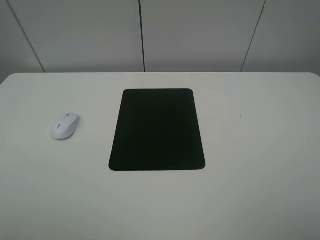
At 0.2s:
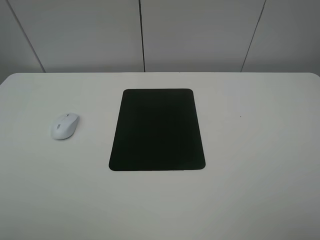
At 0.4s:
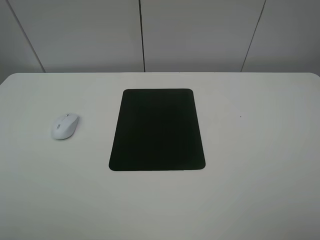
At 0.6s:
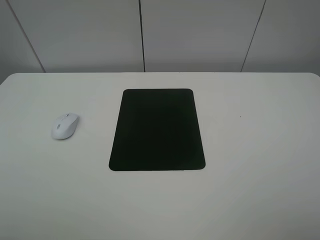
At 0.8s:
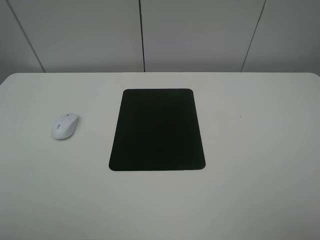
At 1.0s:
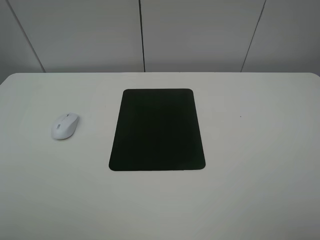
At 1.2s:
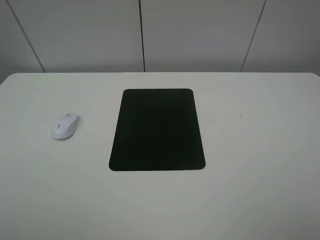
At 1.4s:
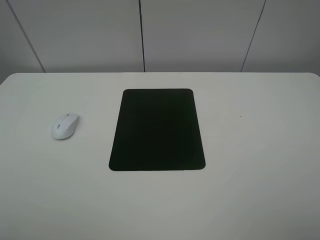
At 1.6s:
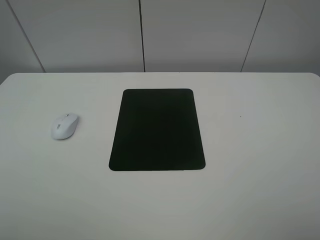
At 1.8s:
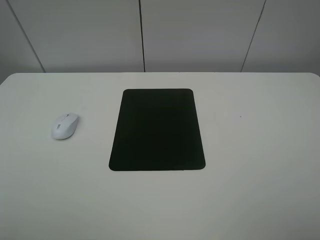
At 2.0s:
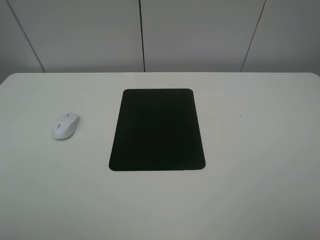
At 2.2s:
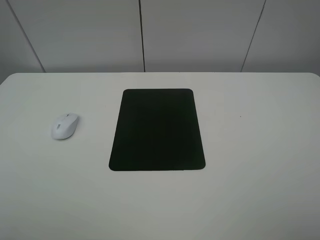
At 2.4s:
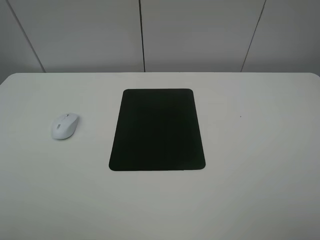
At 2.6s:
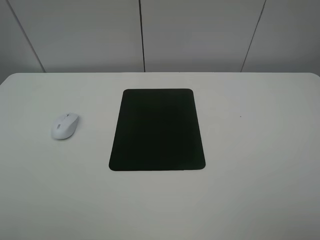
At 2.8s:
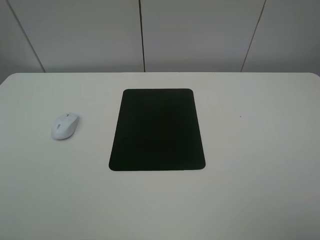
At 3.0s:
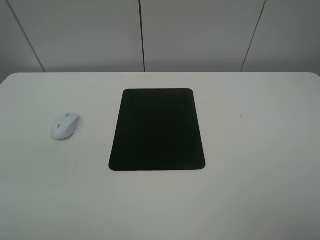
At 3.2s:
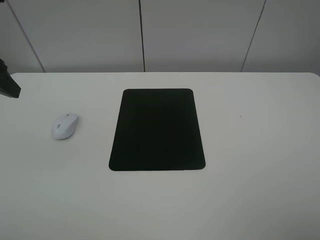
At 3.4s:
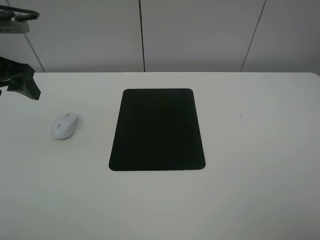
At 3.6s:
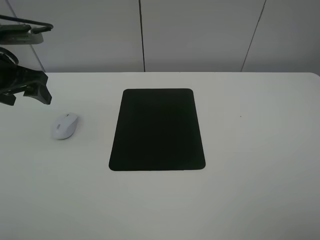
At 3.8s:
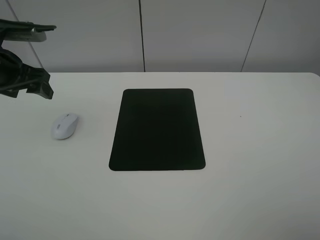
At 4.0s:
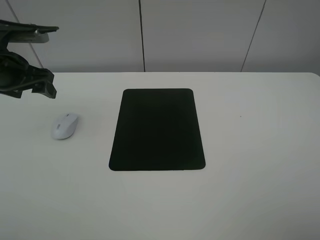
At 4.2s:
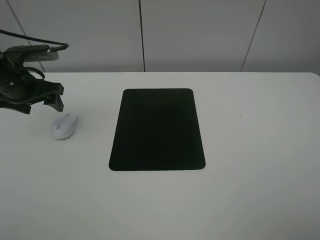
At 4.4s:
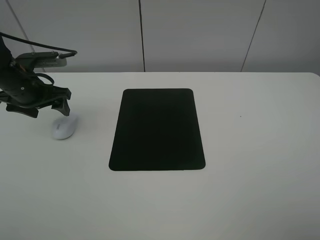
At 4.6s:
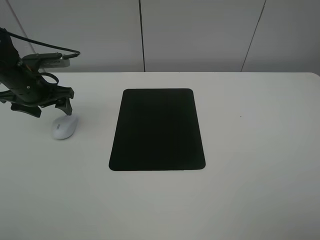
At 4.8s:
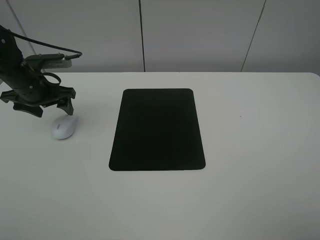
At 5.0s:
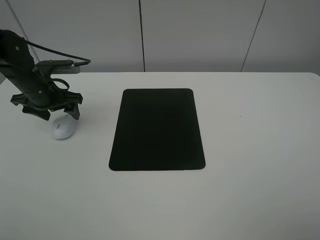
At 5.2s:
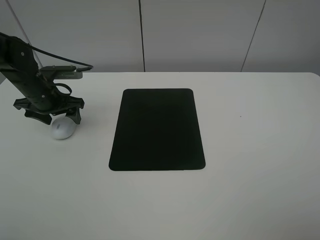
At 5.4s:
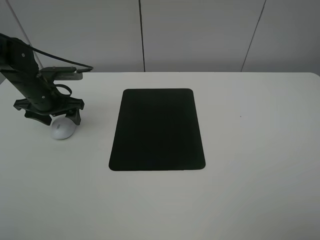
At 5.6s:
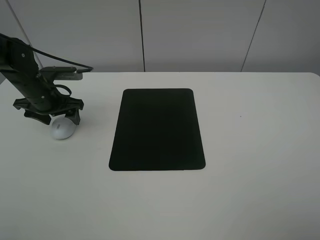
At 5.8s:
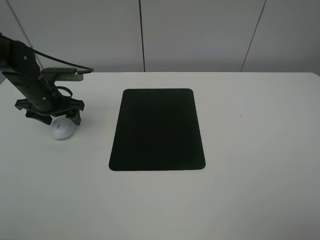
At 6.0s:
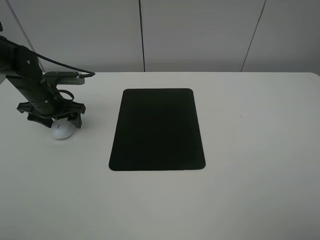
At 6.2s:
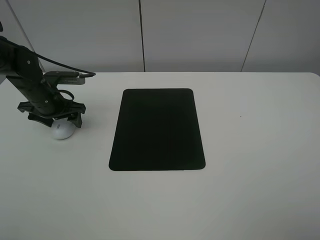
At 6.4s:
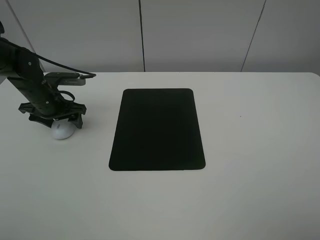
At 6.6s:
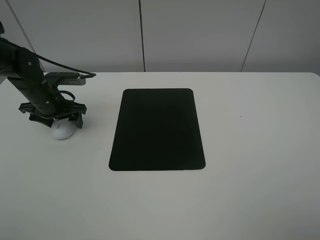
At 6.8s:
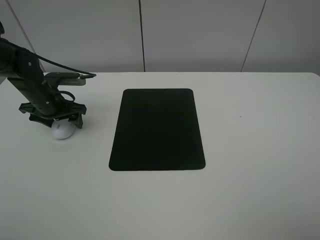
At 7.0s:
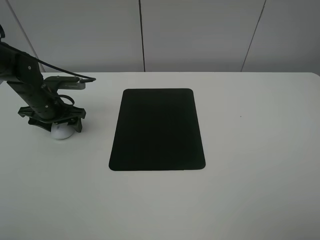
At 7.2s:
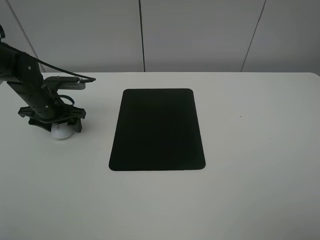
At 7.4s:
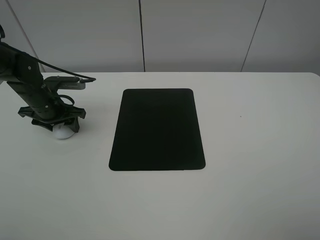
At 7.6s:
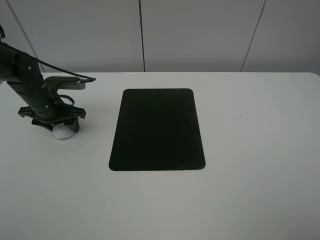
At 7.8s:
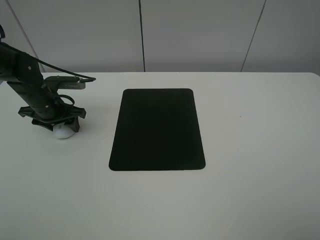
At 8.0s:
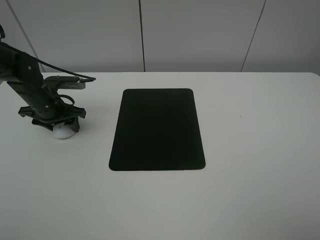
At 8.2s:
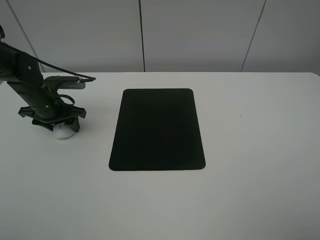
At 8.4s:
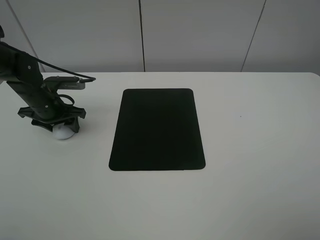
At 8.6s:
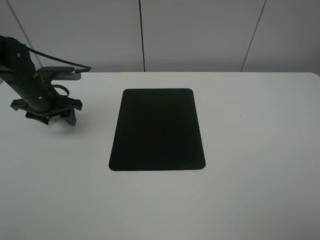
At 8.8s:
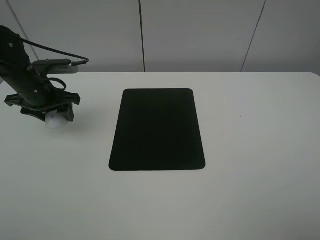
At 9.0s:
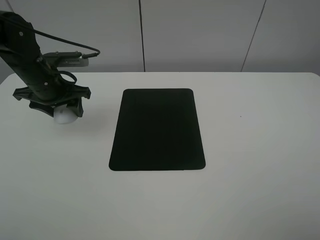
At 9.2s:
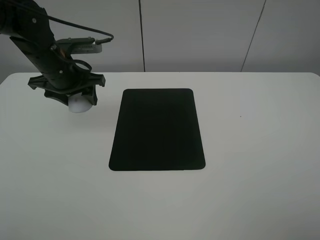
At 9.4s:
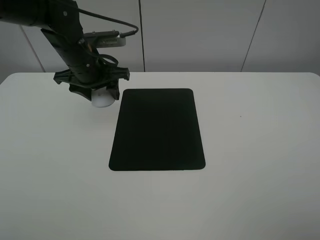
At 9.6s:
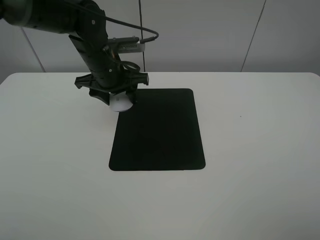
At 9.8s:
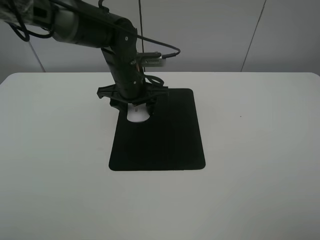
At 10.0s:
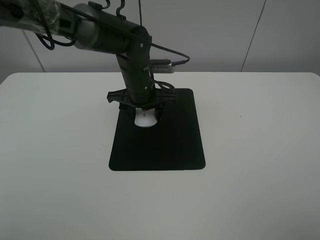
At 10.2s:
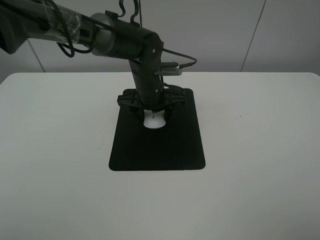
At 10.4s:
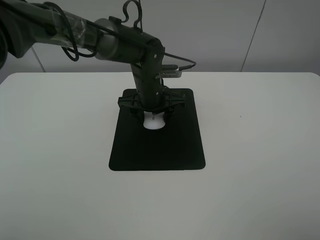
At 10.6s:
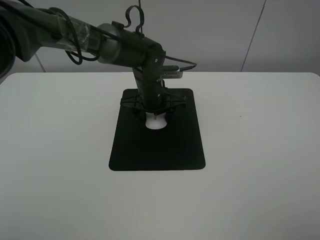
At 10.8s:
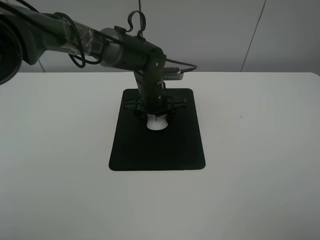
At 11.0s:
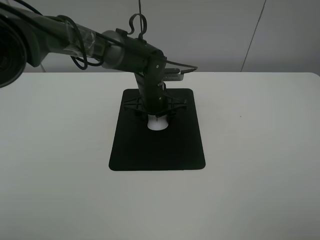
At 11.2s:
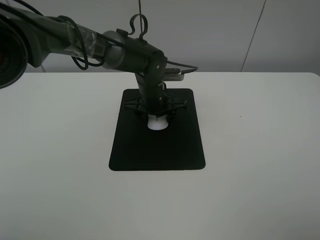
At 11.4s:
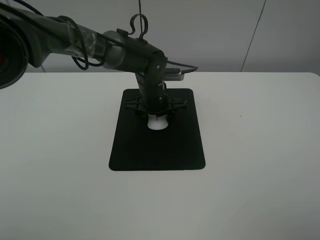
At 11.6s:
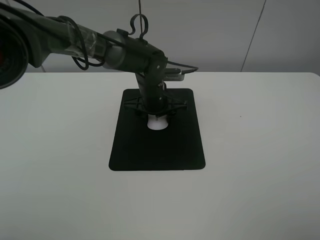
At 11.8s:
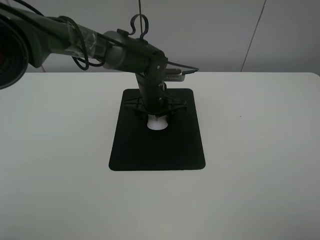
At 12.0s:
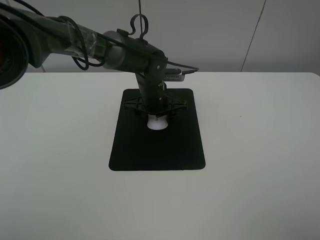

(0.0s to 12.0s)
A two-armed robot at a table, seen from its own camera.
Step, 0.0s - 8.0s: Grasp the mouse with the left gripper.
0.0s - 1.6s: Both grippers stay about where they are.
3.0s - 4.4s: The left gripper travels downward and forward by approximately 20 cm.
4.4s - 6.0s: The left gripper heads downward, covering approximately 5 cm.
6.0s - 7.6s: The left gripper closes up.
7.6s - 9.0s: The left gripper goes about 10 cm upward.
9.0s - 10.4s: The left gripper moves to the right, approximately 20 cm.
10.4s - 12.0s: The grippers make only small movements.

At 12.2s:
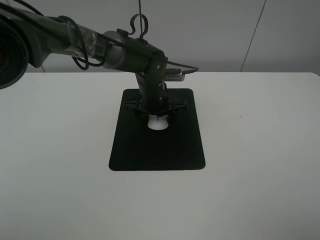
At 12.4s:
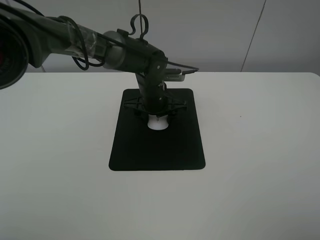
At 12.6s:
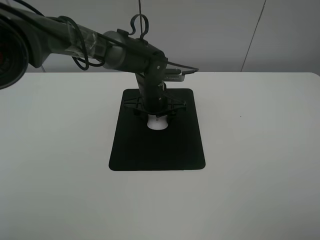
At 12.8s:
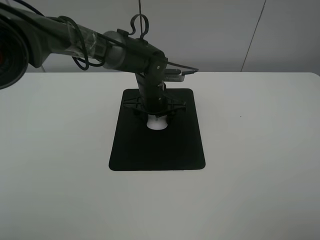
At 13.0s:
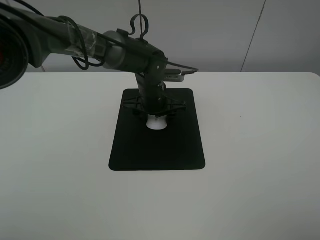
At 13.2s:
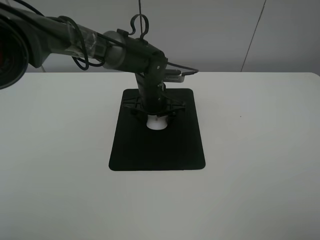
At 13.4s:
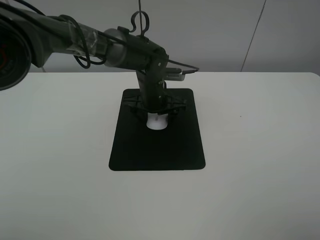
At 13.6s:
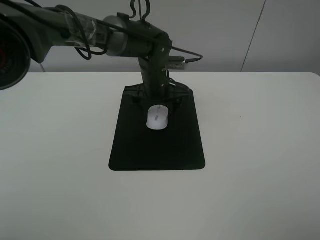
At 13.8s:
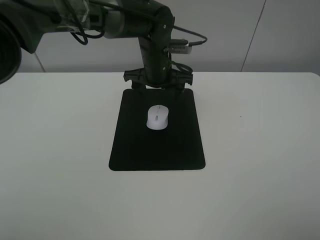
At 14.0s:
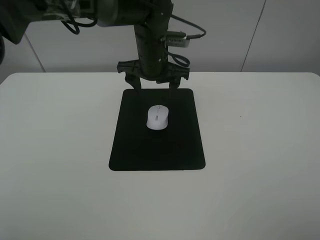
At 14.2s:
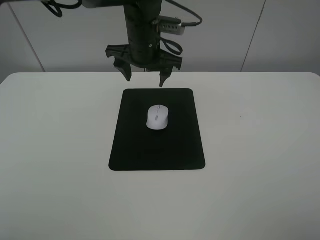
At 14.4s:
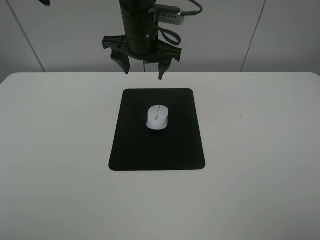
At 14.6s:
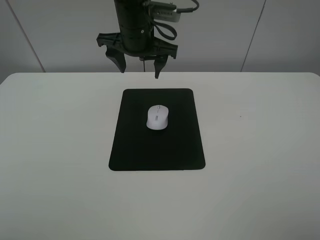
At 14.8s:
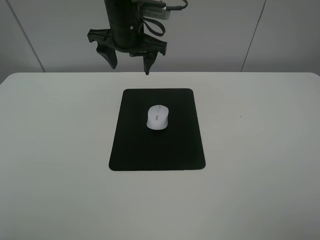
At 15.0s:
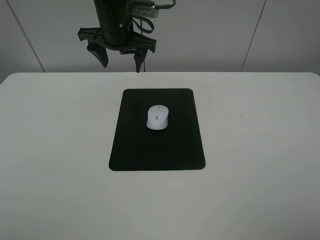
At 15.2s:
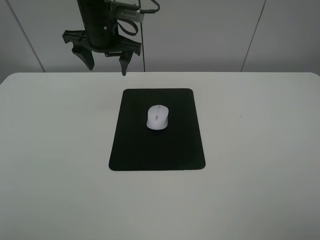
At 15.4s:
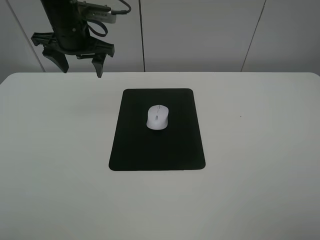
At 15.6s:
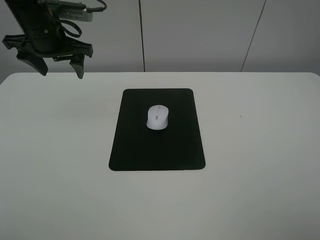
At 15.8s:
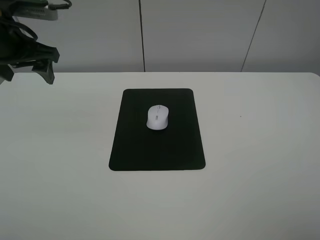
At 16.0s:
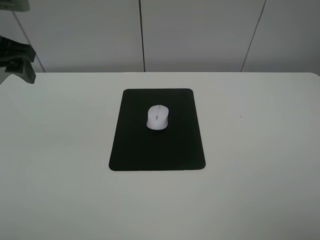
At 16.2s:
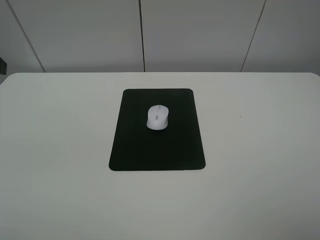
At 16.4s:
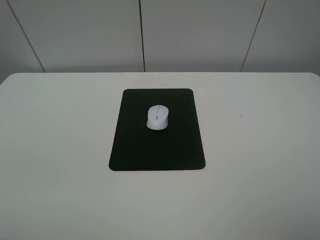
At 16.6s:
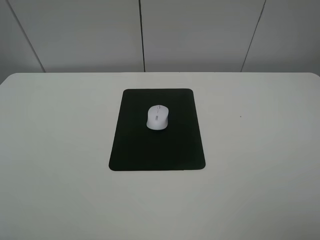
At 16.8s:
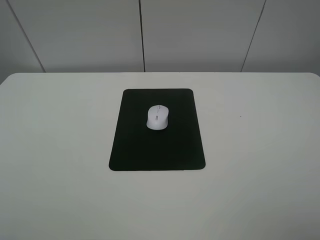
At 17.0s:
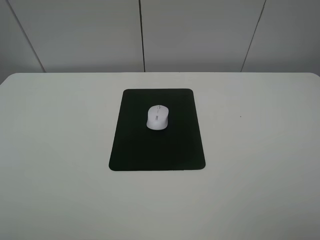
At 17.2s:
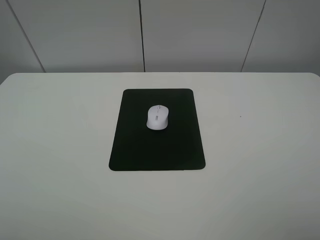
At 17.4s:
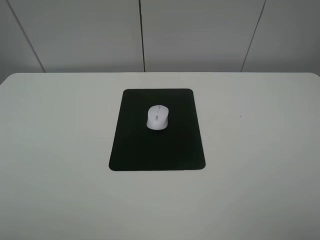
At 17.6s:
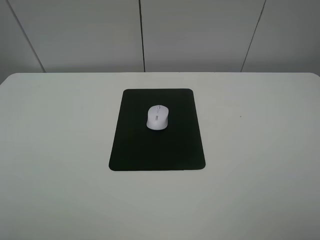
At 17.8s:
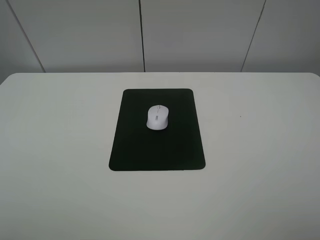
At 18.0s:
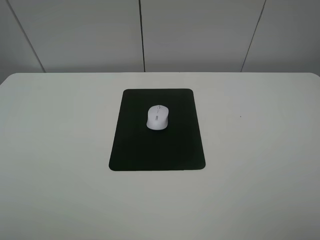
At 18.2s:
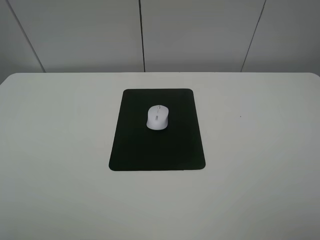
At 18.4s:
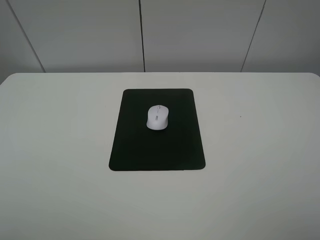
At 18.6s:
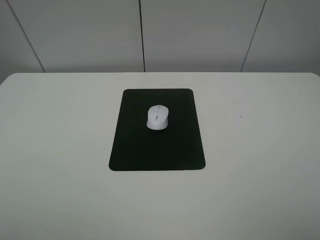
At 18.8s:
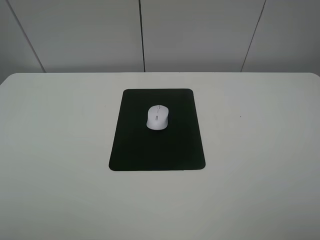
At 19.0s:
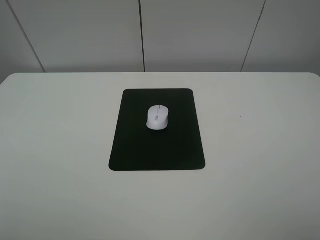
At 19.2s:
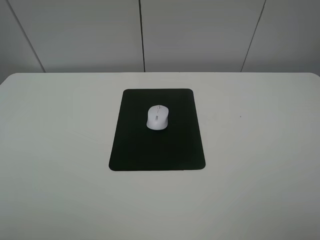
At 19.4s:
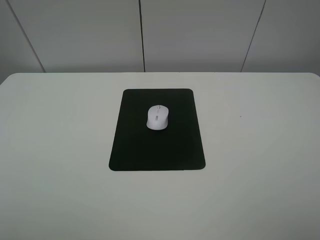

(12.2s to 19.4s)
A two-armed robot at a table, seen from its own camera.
12.2s - 13.6s: The left gripper opens.
13.6s - 15.0s: The left gripper moves upward and to the left, roughly 15 cm.
15.0s - 16.6s: The left gripper heads backward and to the left, covering approximately 35 cm.

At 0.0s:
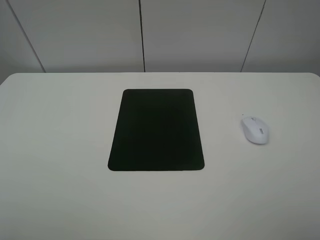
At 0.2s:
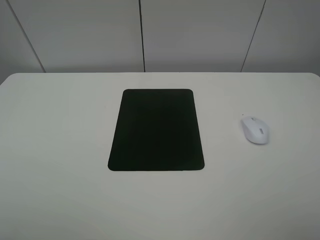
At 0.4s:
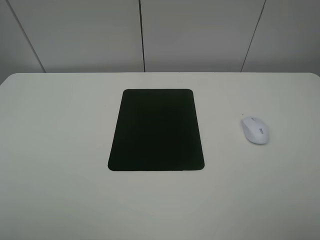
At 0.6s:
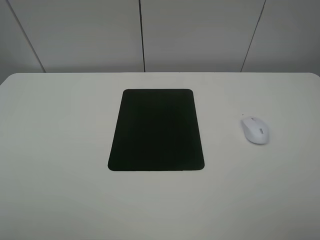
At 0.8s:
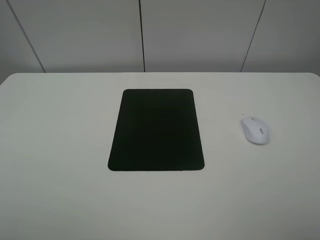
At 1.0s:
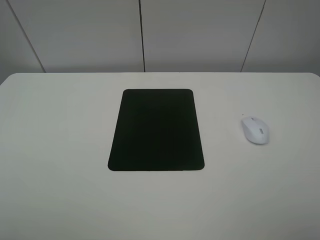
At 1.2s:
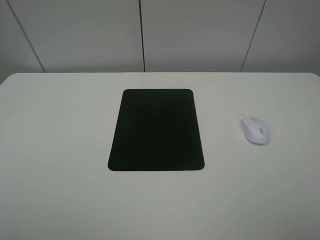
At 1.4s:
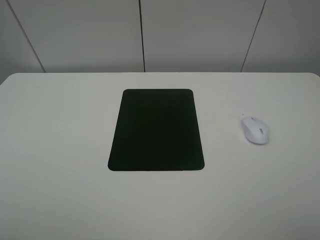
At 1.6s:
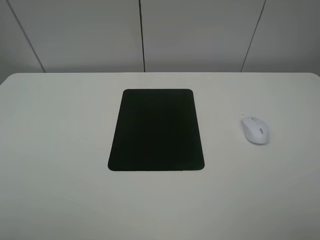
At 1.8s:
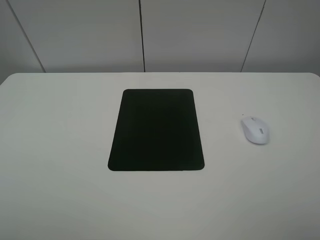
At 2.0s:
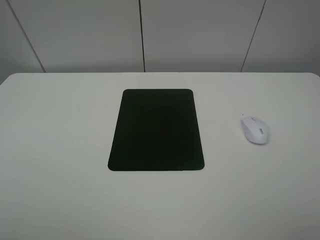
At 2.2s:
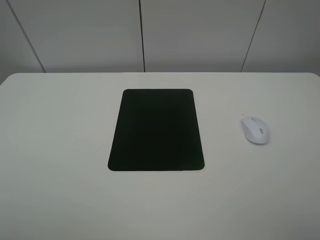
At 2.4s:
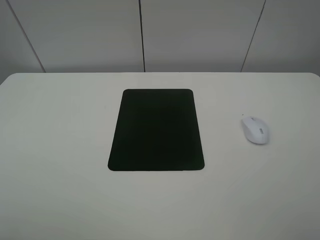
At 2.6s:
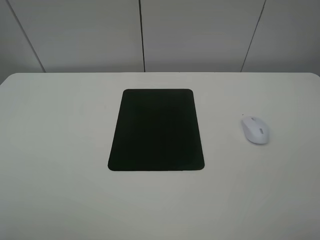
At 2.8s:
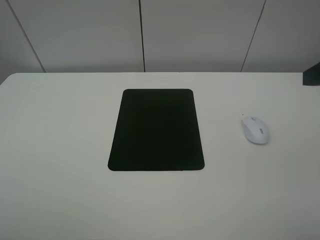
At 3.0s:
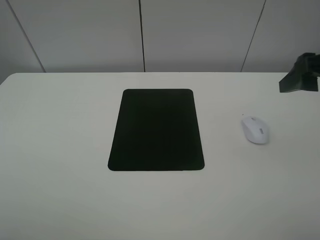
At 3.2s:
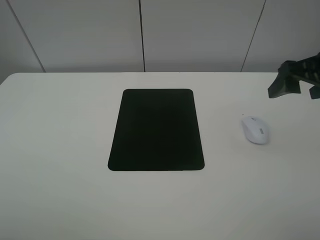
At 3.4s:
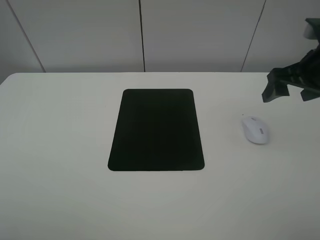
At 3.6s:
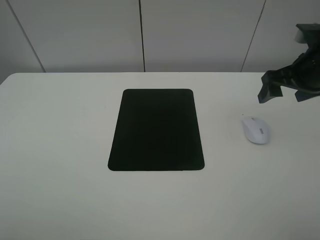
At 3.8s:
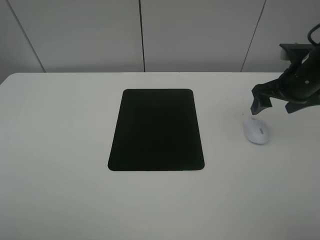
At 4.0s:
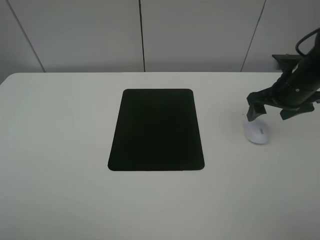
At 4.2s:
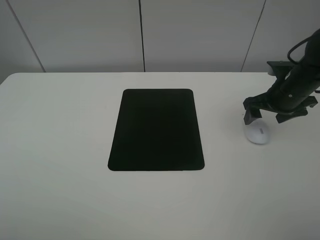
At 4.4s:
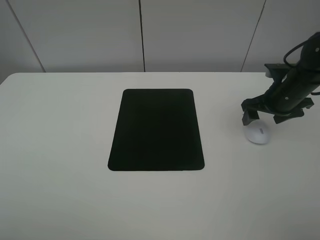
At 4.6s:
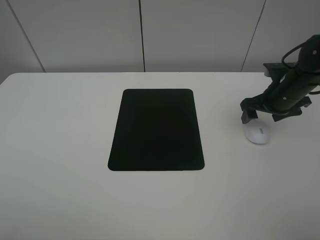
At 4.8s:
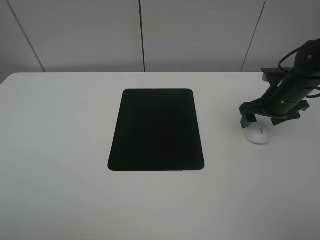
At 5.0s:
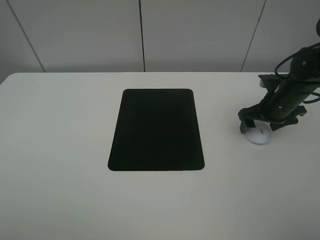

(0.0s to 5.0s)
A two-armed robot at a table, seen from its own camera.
0.0s - 1.6s: Both grippers stay about where they are.
1.6s - 3.4s: The right gripper is displaced forward by about 30 cm.
3.4s - 5.0s: The right gripper shifts approximately 15 cm downward and forward.
